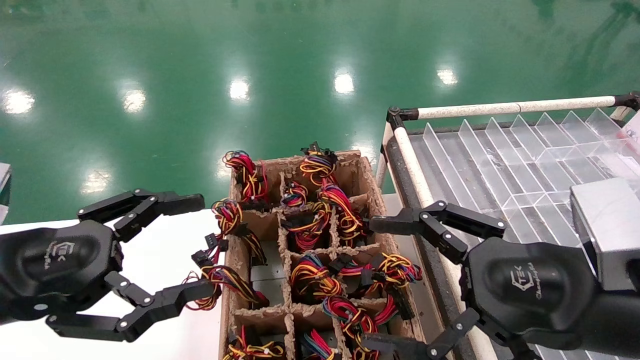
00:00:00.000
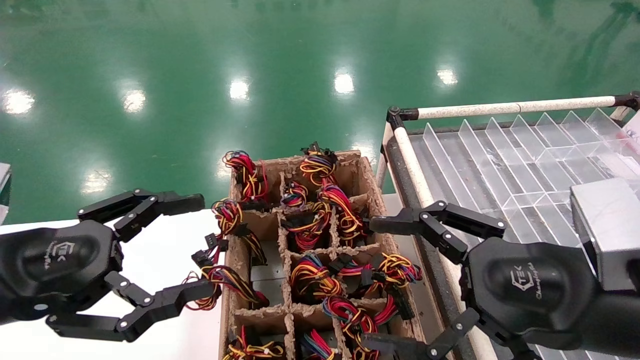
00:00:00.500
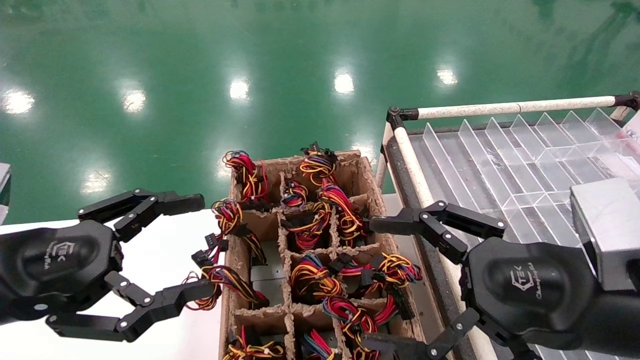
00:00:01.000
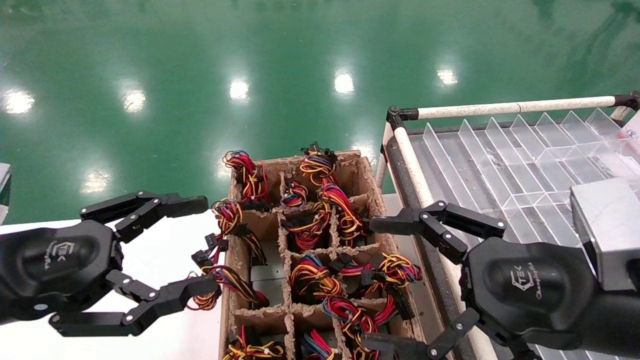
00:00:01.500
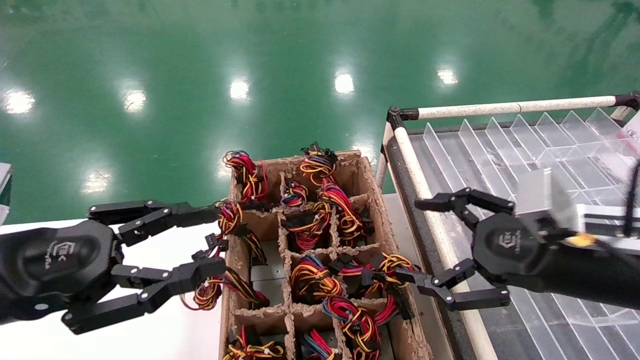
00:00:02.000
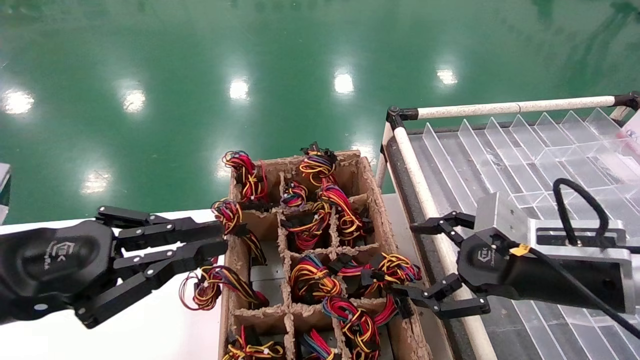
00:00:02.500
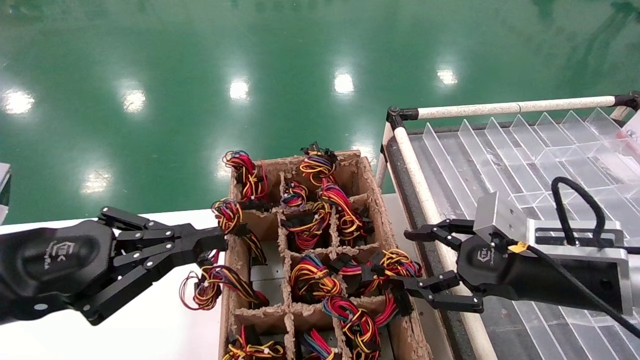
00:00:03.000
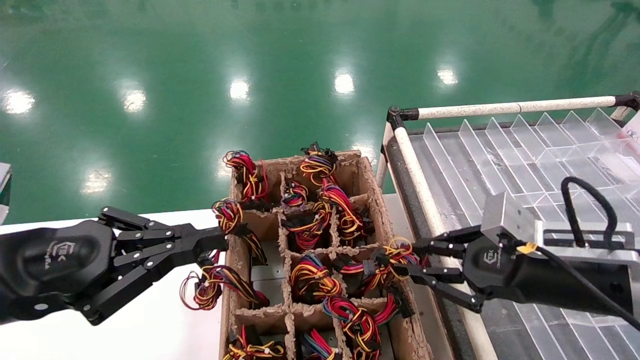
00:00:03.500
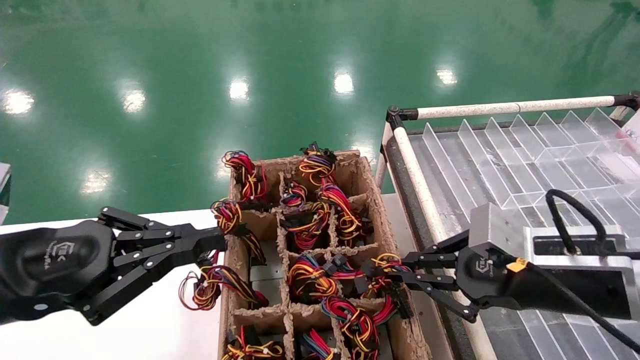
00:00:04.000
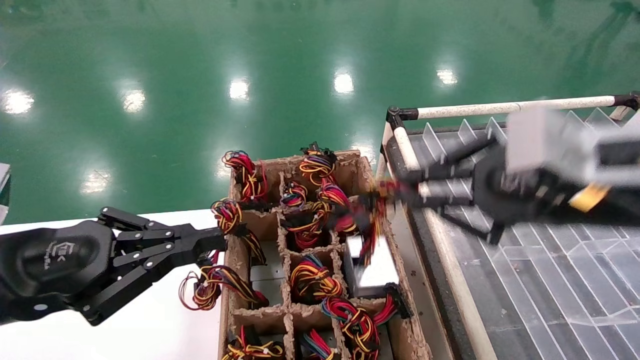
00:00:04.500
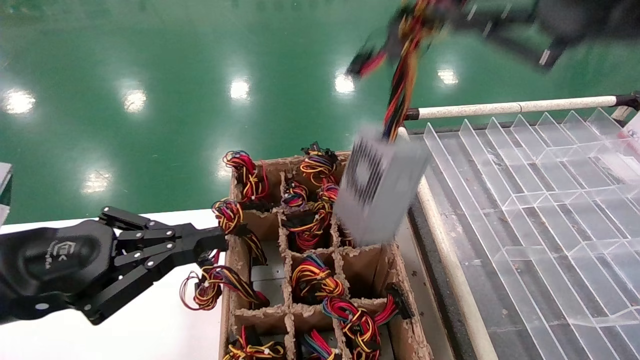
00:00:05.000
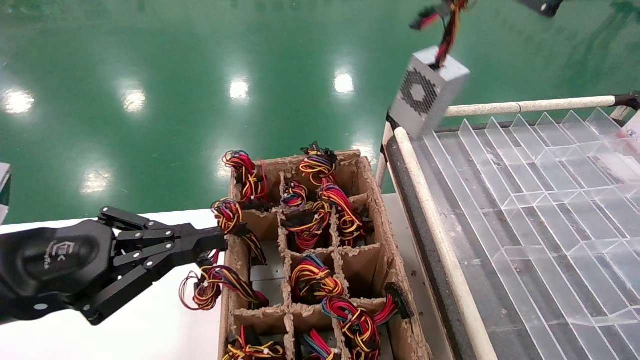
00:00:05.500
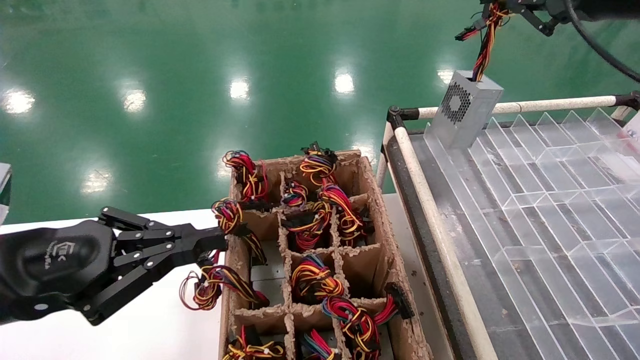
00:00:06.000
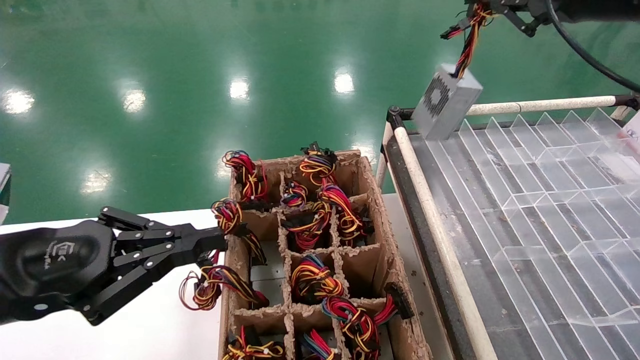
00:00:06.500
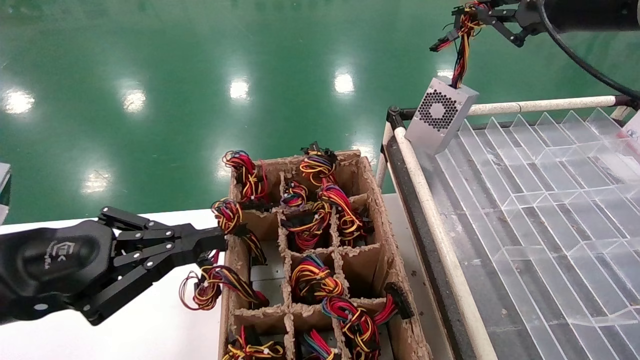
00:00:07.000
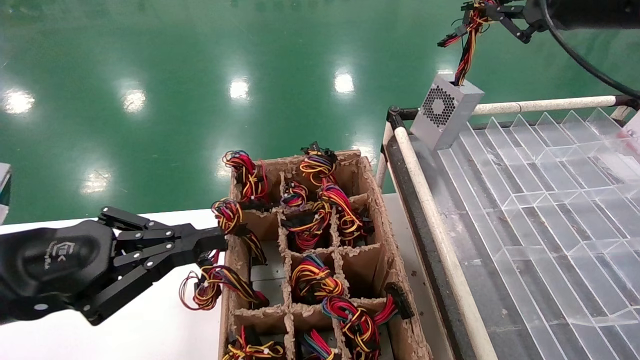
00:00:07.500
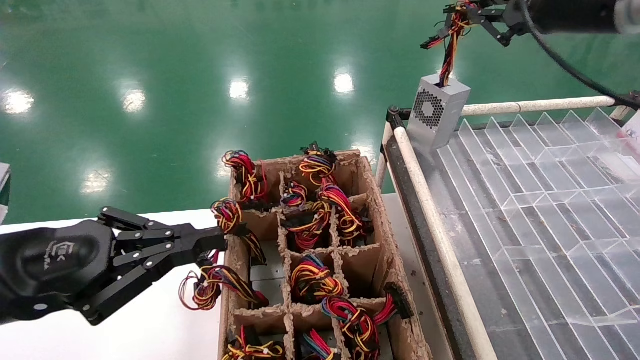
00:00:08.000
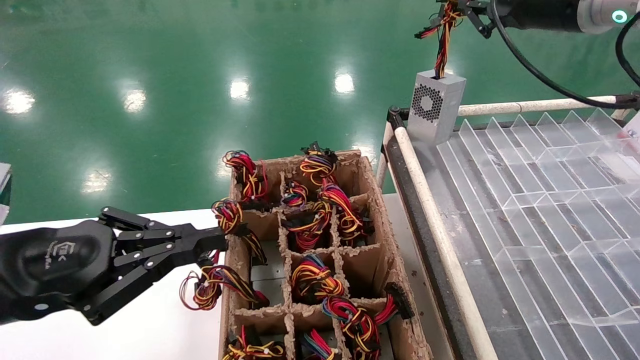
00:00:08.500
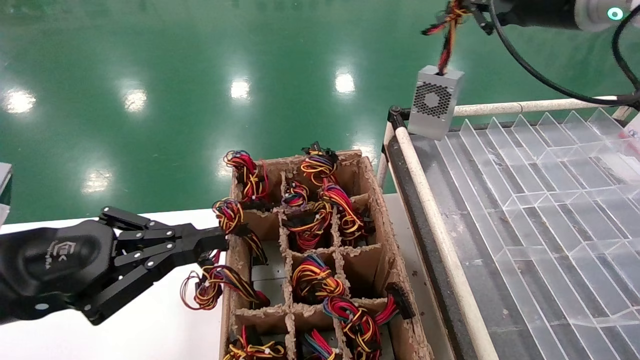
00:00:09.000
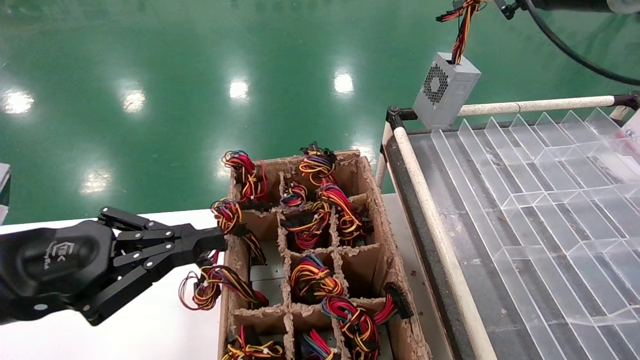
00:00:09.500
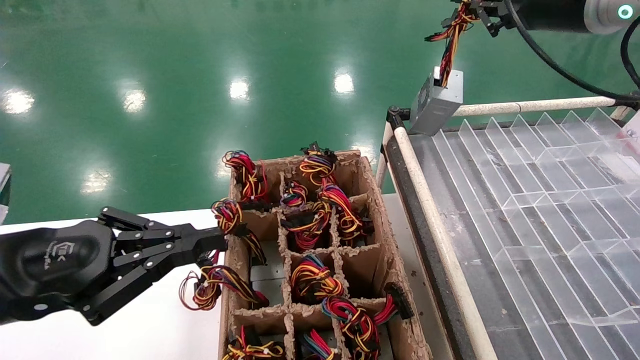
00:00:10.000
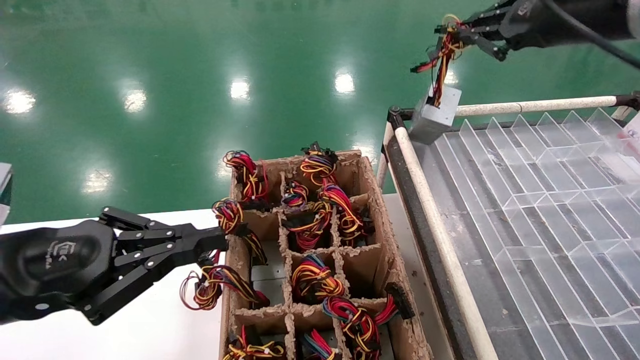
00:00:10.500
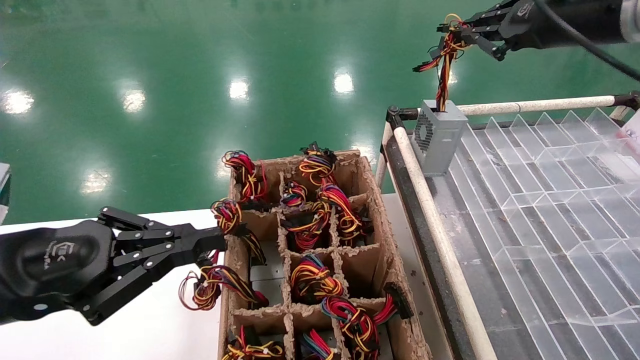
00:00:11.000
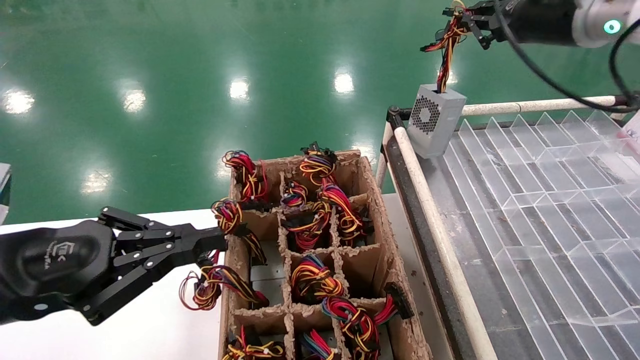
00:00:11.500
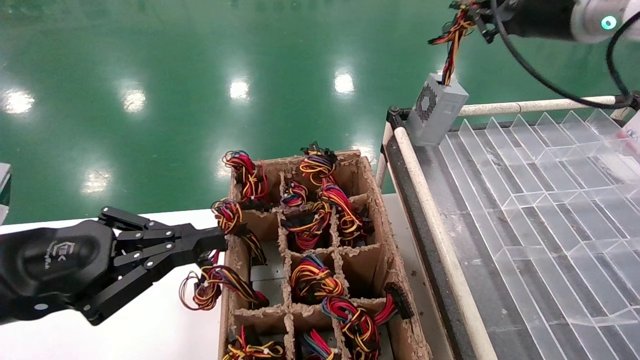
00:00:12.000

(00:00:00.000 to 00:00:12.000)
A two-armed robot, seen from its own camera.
Step, 00:00:02.000 - 00:00:03.500: Grab the main unit power supply from the containment box.
00:00:00.000 - 00:00:02.000: The right gripper goes roughly 5 cm forward. The left gripper closes up.
00:00:02.000 - 00:00:04.000: The left gripper closes its fingers; the right gripper closes its fingers.
00:00:04.000 - 00:00:06.000: The right gripper travels upward by roughly 25 cm.
00:00:06.000 - 00:00:08.000: There are only small adjustments of the grippers.
00:00:08.000 - 00:00:12.000: The grippers stay close to where they were, moving slightly.

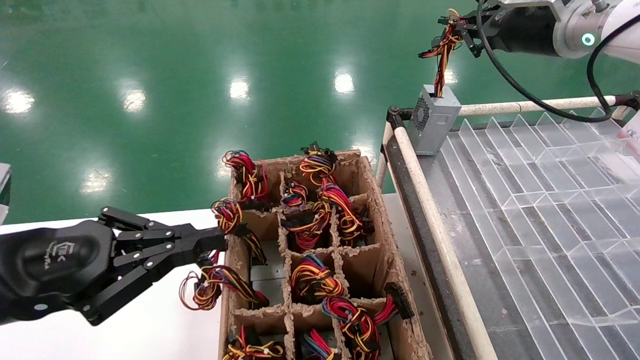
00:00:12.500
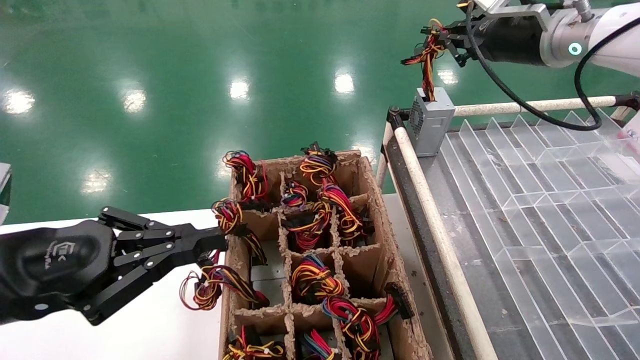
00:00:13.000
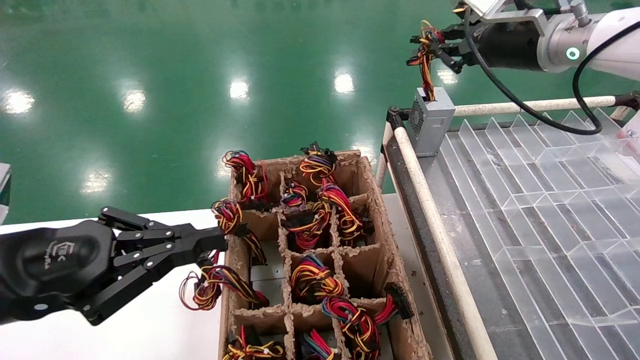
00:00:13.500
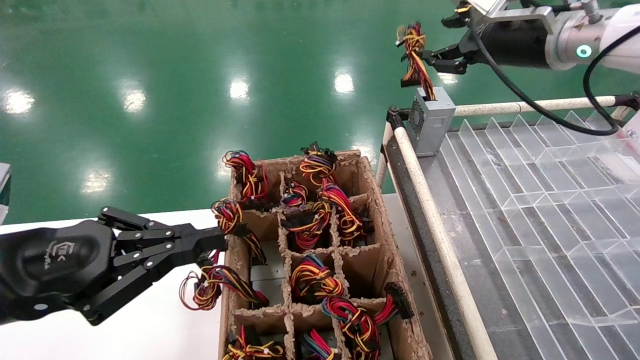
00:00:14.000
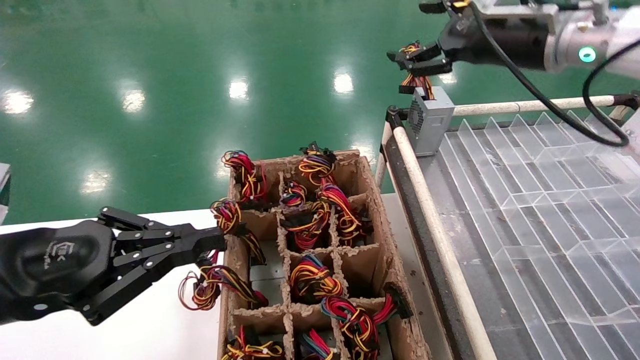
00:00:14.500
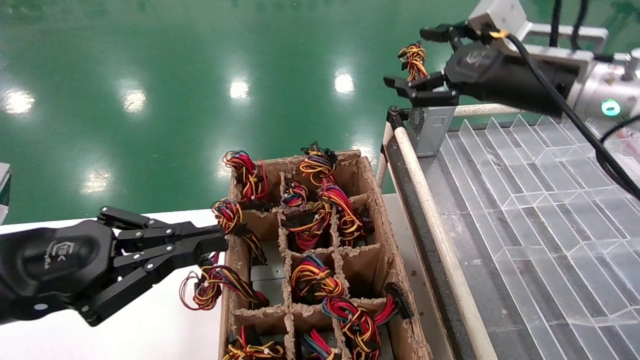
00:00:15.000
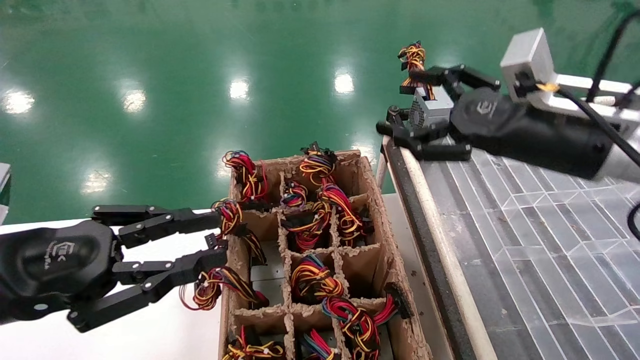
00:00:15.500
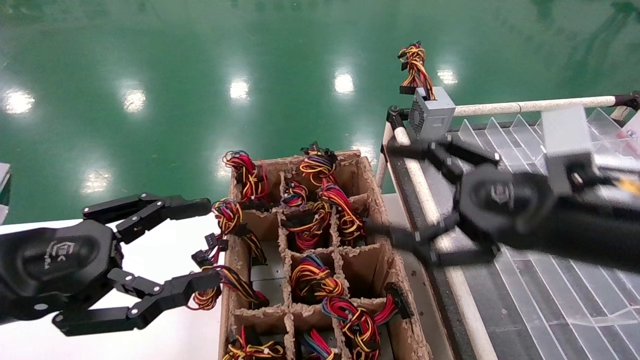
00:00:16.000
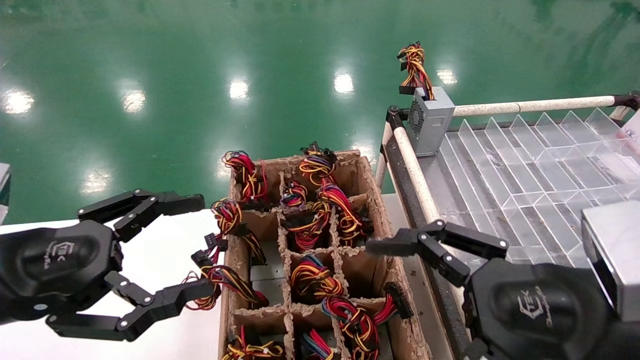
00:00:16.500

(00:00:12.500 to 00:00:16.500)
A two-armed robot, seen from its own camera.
00:00:12.500 - 00:00:14.500: The right gripper opens its fingers.
00:00:14.500 - 00:00:16.500: The right gripper heads backward and downward, covering some 30 cm; the left gripper opens up.

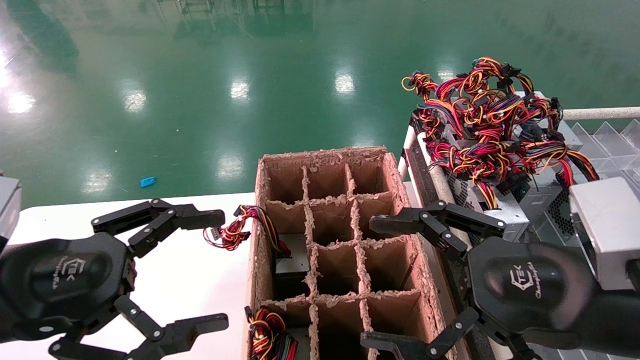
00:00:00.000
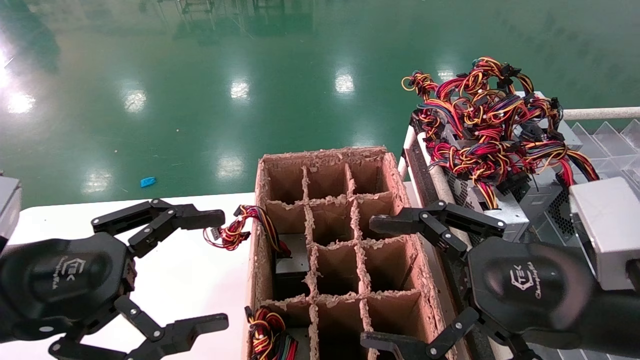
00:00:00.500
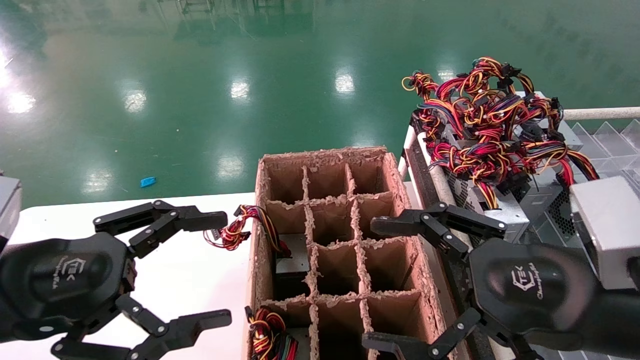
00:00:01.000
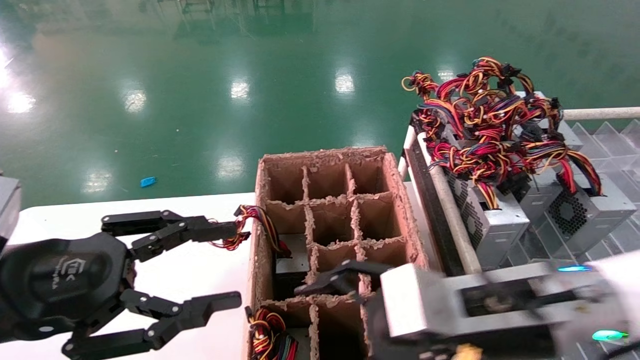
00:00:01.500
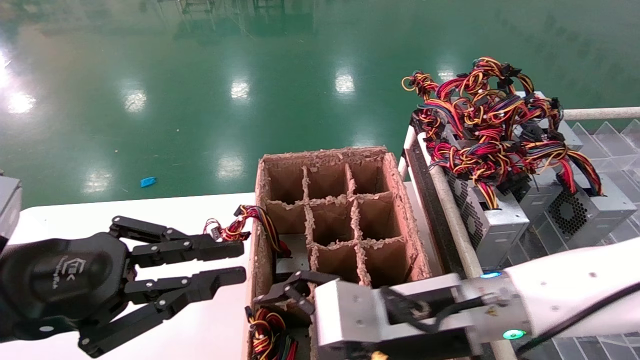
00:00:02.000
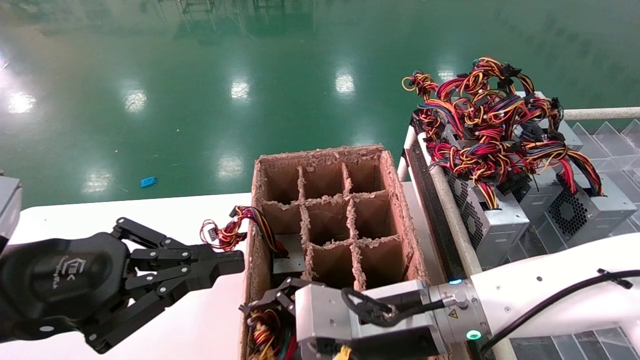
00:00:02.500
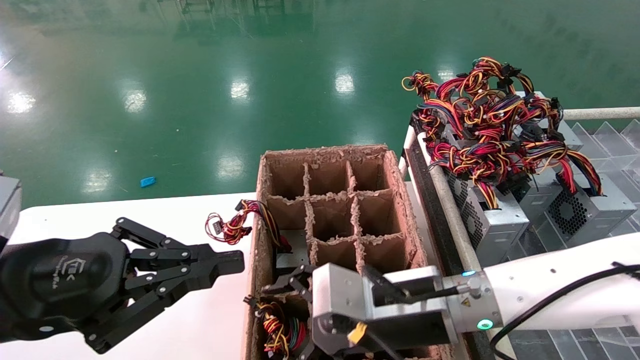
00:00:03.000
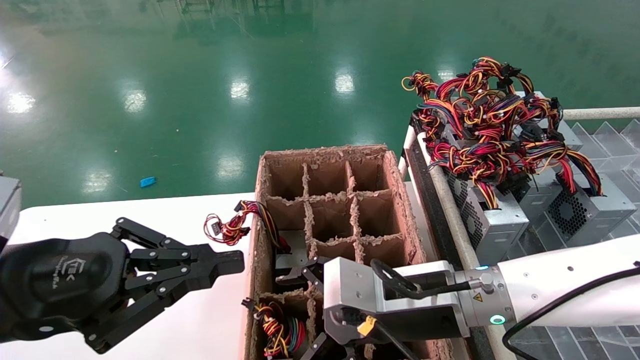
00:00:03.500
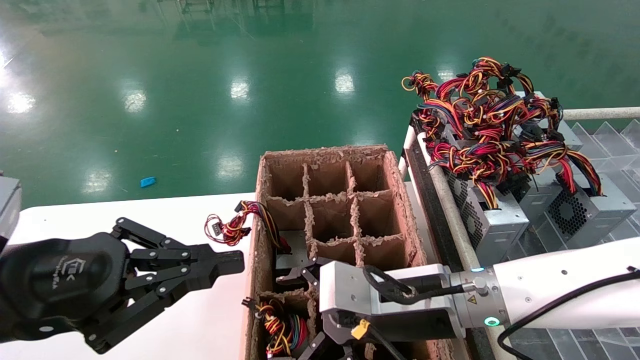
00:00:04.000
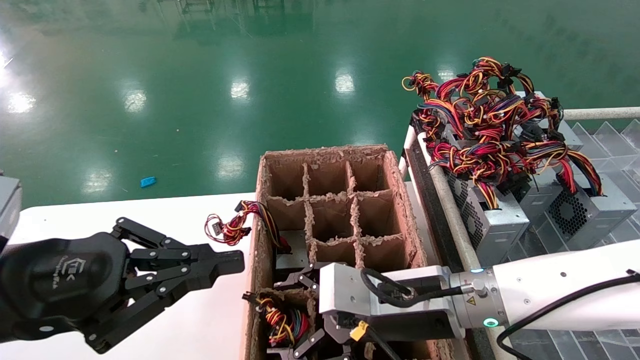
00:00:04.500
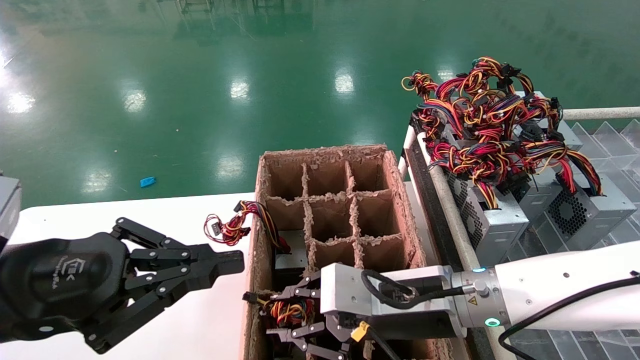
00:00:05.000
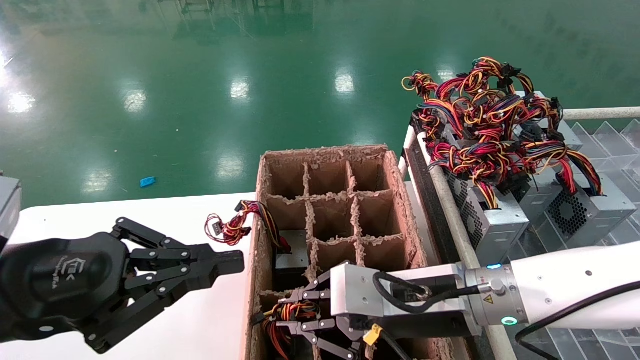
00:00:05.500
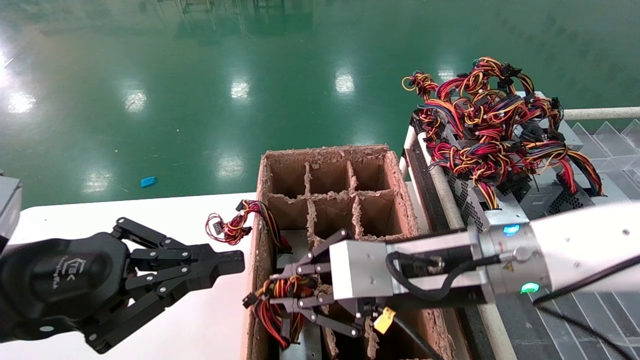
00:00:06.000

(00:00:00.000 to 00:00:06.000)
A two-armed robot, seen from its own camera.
Step, 00:00:01.500 - 00:00:05.000: Grab the main unit power supply from the containment box.
00:00:00.000 - 00:00:02.000: The left gripper closes, while the right gripper travels to the left, forward and downward by roughly 15 cm.
00:00:02.000 - 00:00:04.000: There are only small adjustments of the grippers.
00:00:04.000 - 00:00:06.000: The right gripper shifts approximately 5 cm upward, and closes up.
